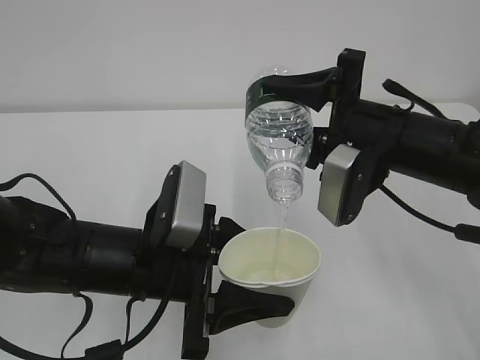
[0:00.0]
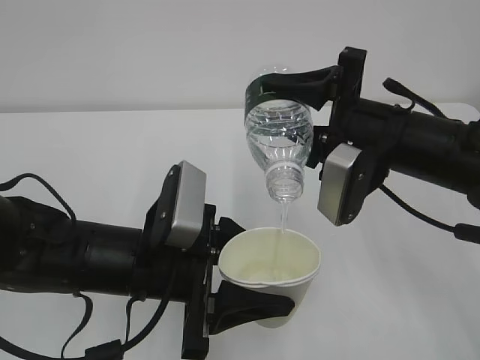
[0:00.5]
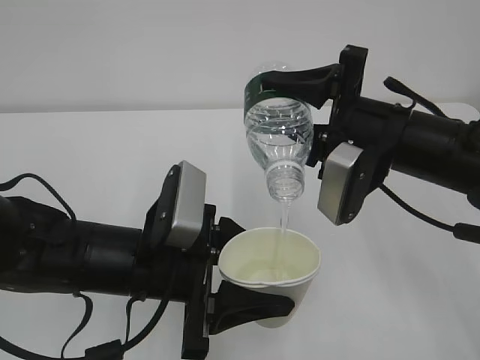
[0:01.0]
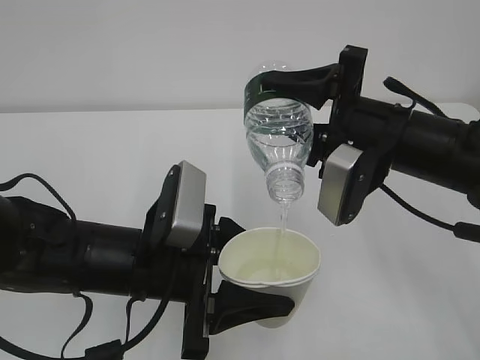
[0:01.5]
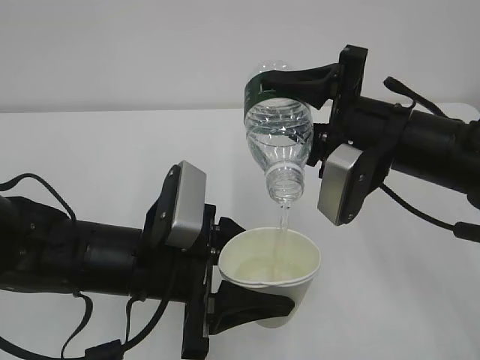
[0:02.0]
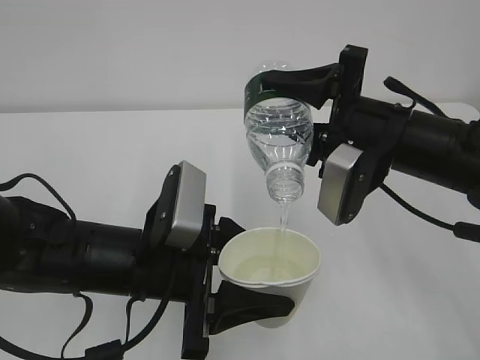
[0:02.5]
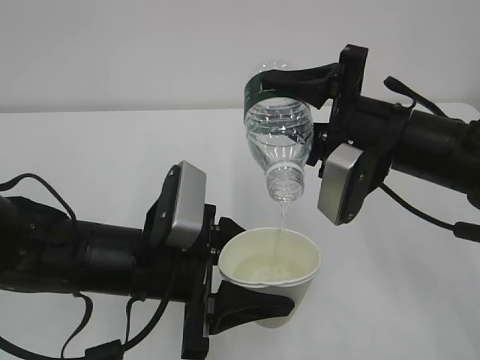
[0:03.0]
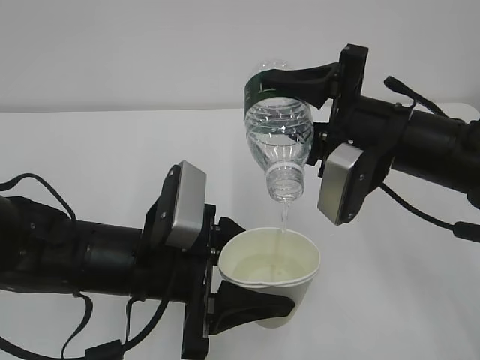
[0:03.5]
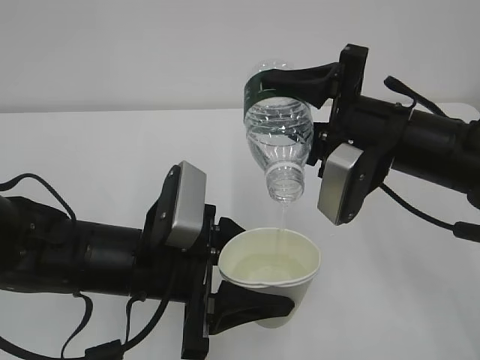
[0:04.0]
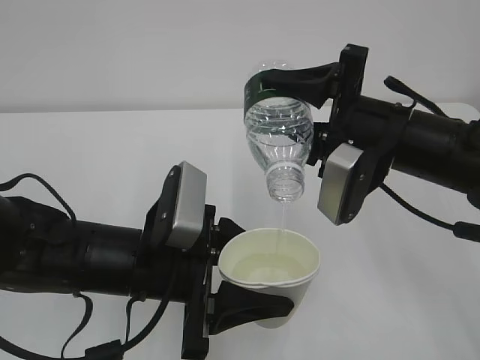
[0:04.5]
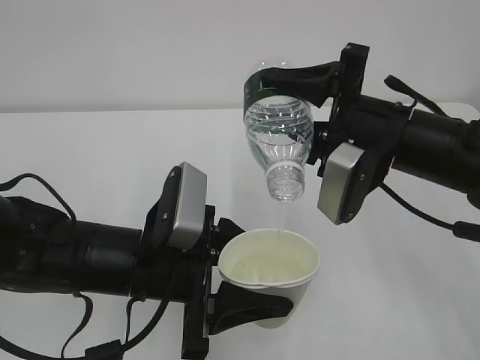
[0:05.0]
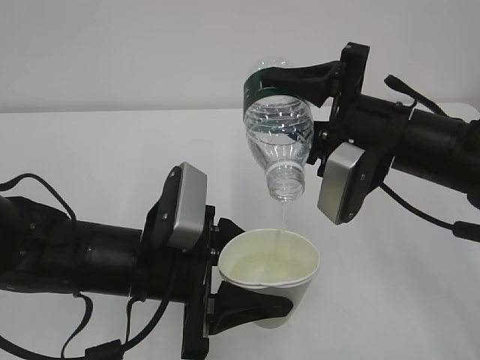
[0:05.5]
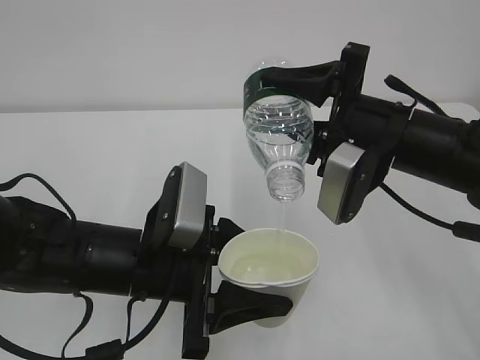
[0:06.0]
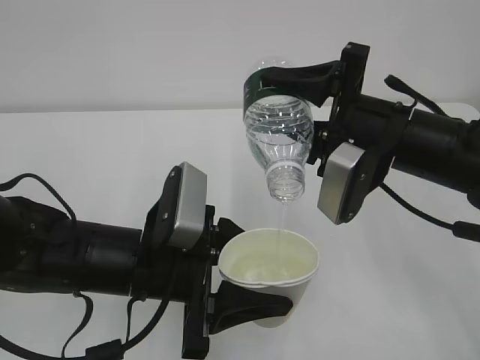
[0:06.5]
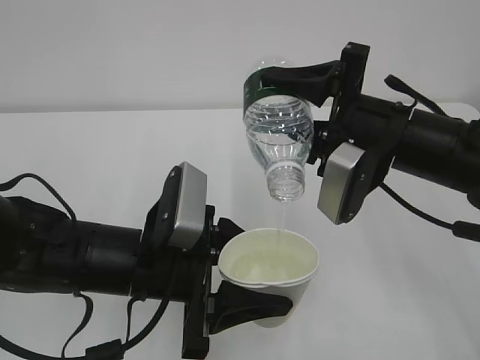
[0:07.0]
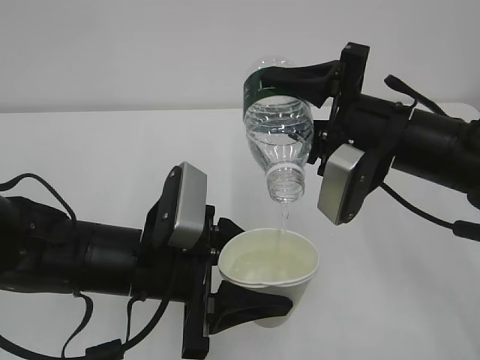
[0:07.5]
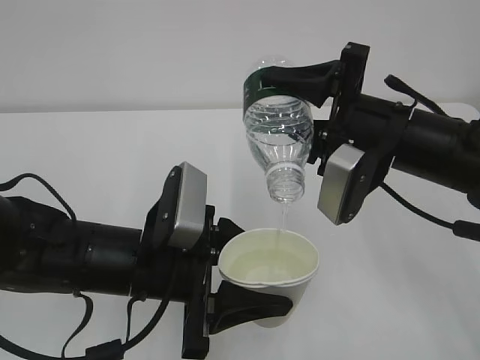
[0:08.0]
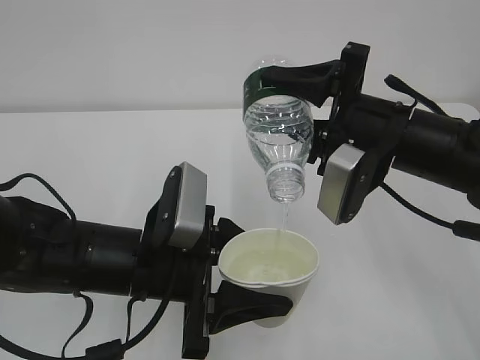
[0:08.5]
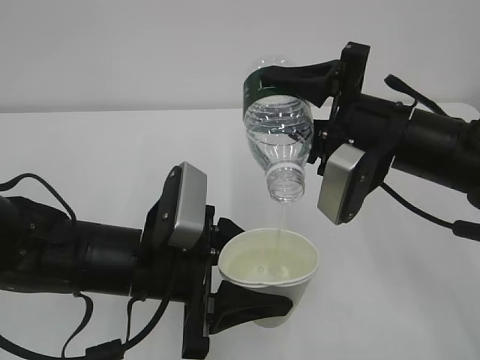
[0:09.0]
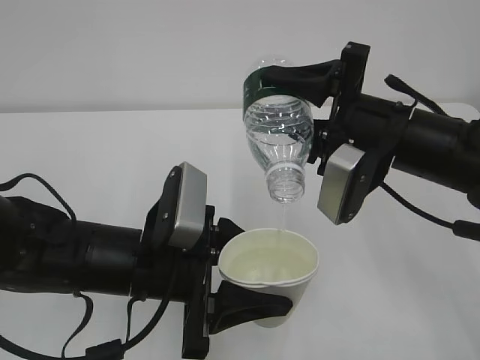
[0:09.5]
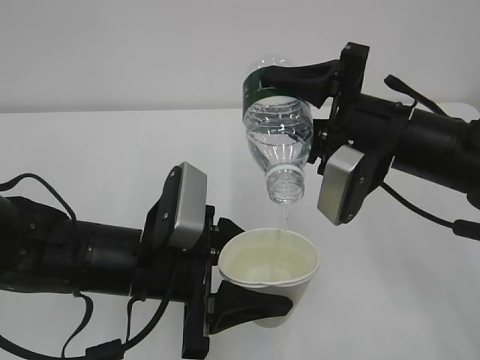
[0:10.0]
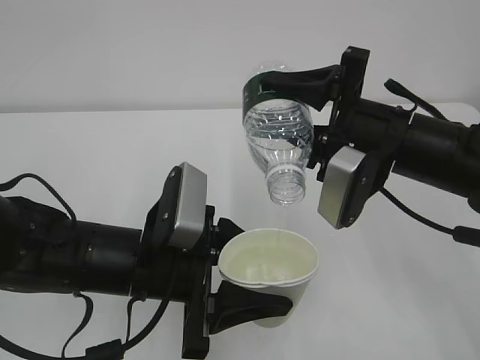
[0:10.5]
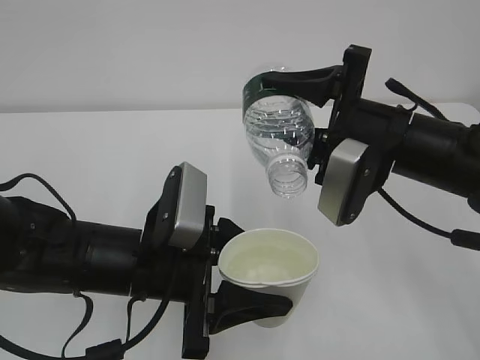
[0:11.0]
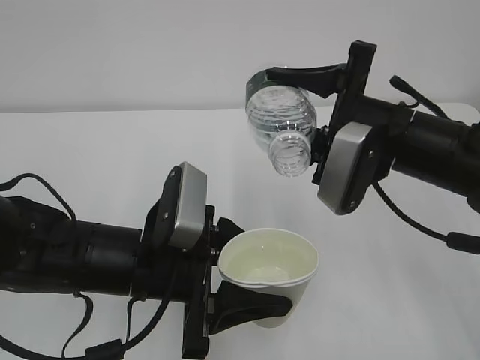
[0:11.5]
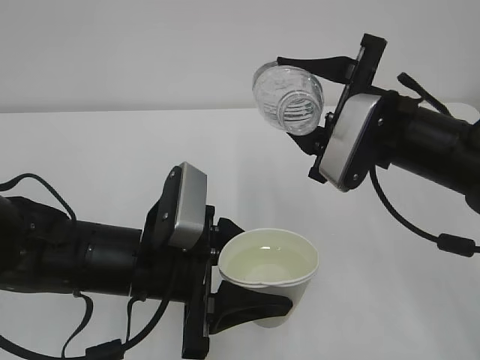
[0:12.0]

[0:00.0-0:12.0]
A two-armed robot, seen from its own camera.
0:00.0 to 0:08.0: Neither gripper changes place.
0:08.0 to 0:10.0: The two grippers keep their place.

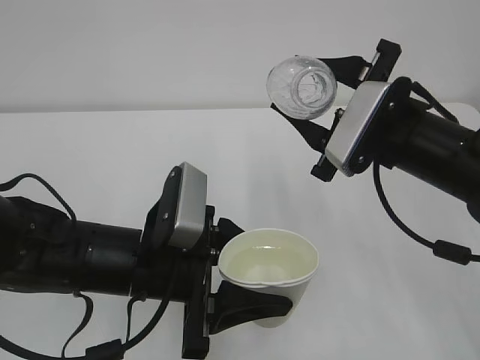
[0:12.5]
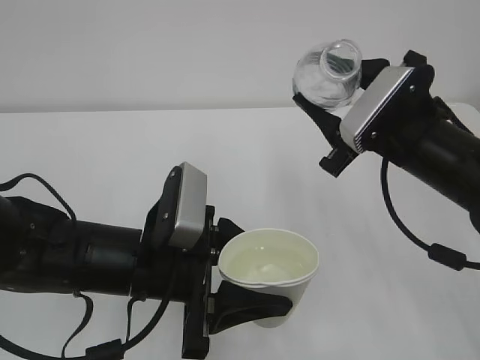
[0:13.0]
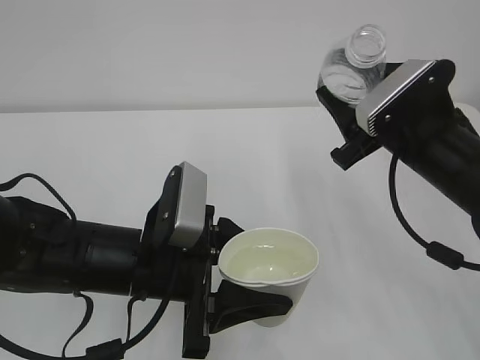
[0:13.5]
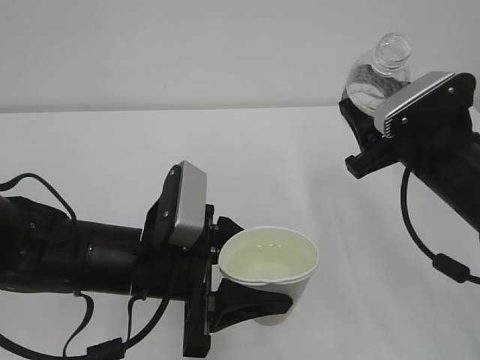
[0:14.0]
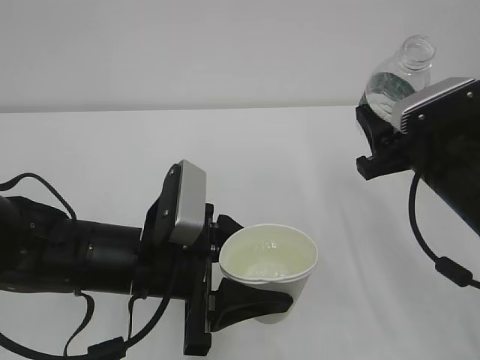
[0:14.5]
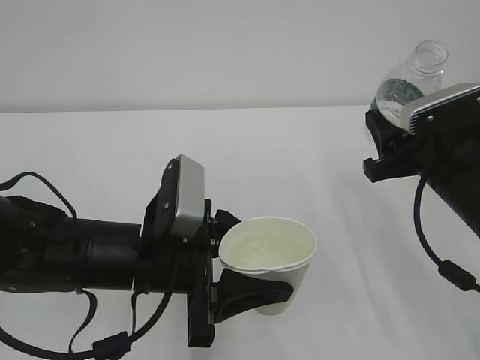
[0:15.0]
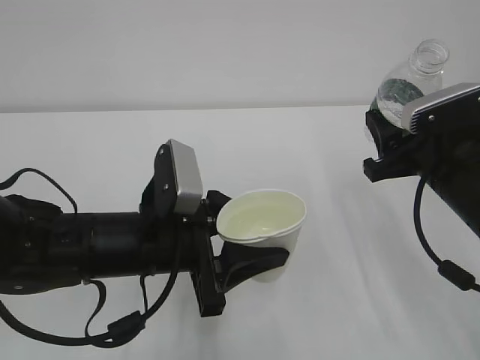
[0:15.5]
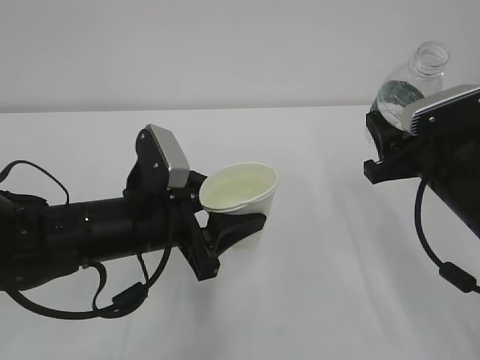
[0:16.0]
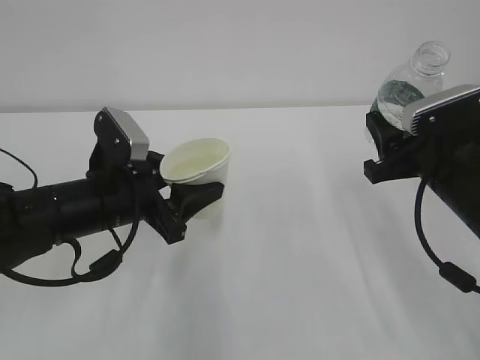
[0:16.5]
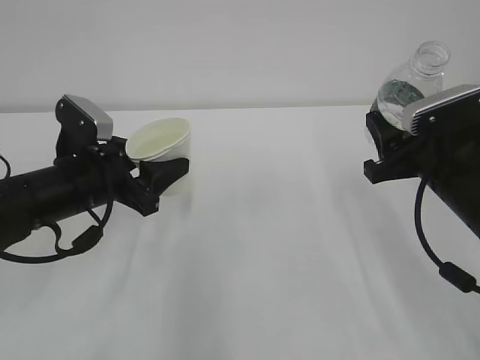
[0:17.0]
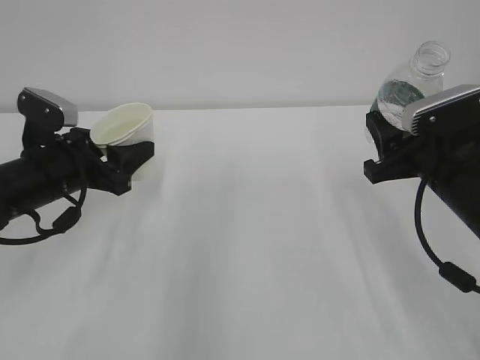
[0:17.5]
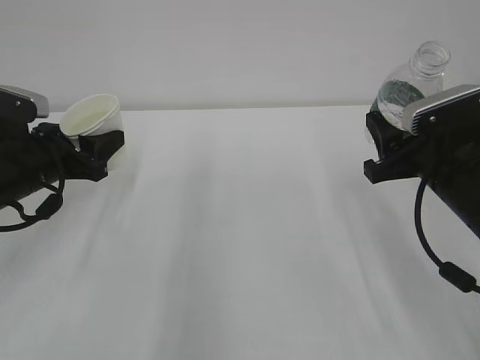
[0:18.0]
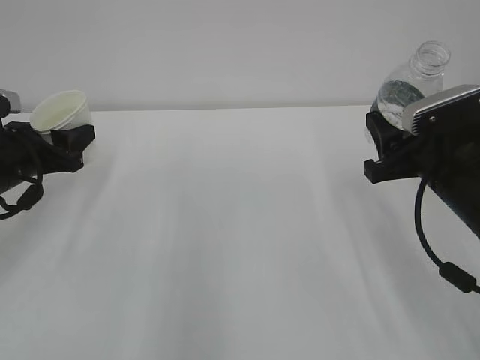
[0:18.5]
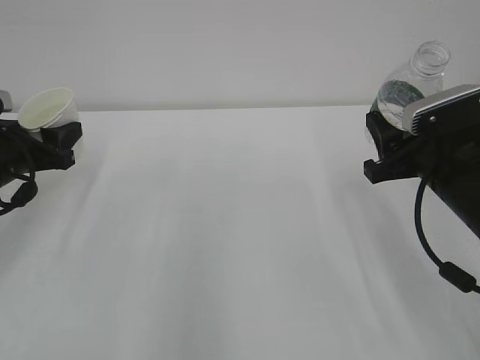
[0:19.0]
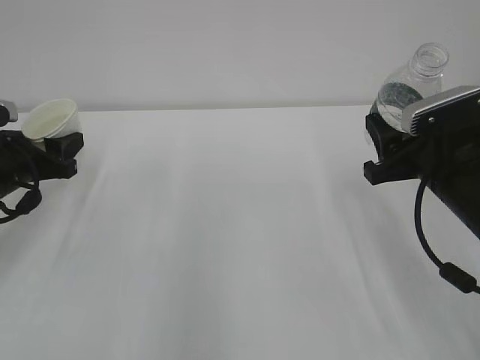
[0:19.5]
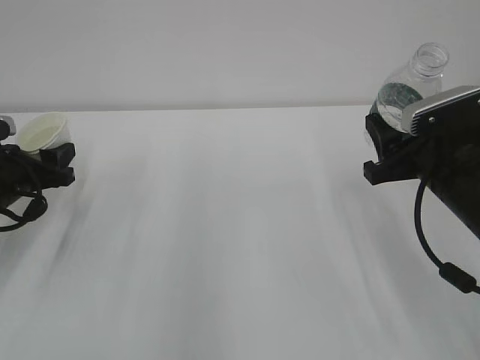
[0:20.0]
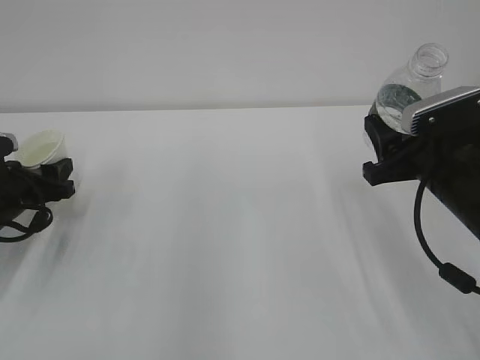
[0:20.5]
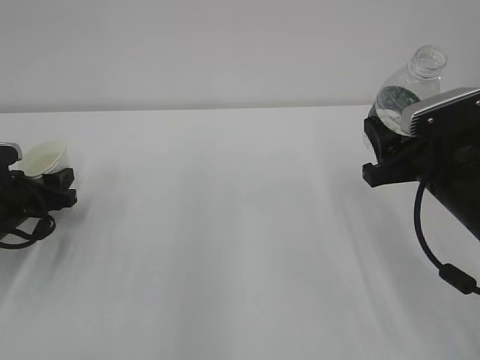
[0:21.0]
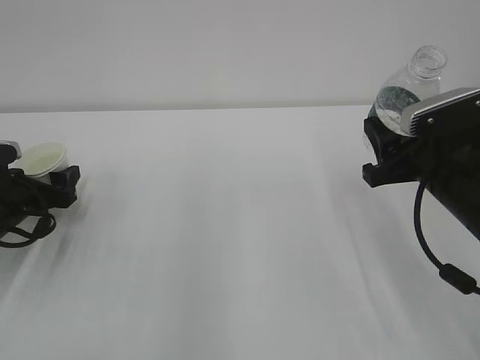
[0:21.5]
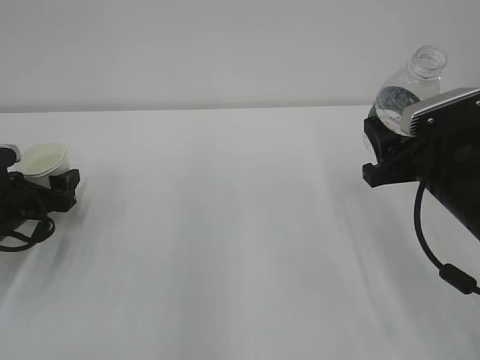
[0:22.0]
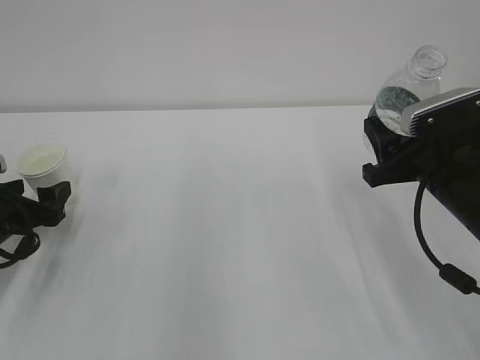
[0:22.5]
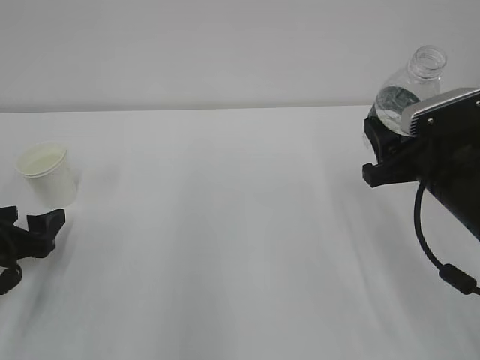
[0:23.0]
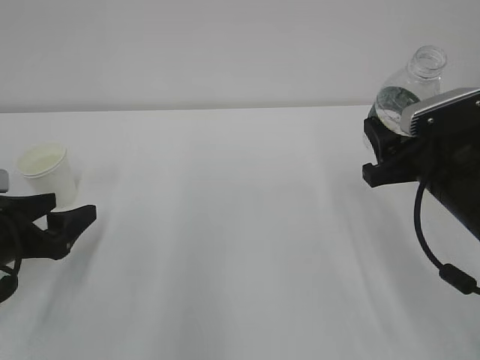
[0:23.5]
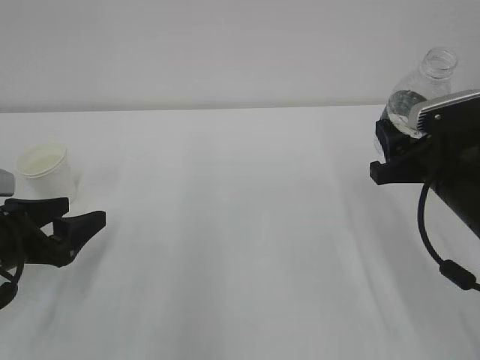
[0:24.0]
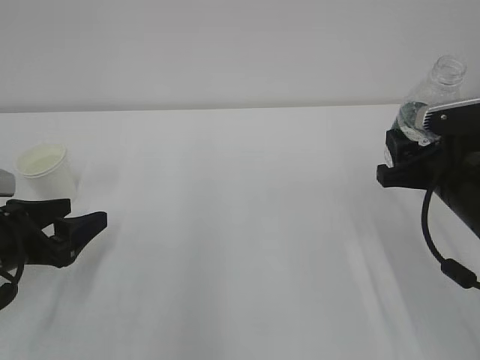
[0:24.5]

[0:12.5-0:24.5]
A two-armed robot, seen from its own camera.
0:12.5 to 0:14.5: The right gripper travels to the right by approximately 5 cm.
0:14.5 to 0:16.5: The left gripper shifts roughly 10 cm forward and to the left.
0:16.5 to 0:18.5: The left gripper travels to the left by approximately 15 cm.
0:18.5 to 0:20.5: The left gripper is displaced downward by approximately 5 cm.
0:20.5 to 0:22.5: The left gripper opens.
0:22.5 to 0:24.5: The left gripper goes approximately 5 cm backward.

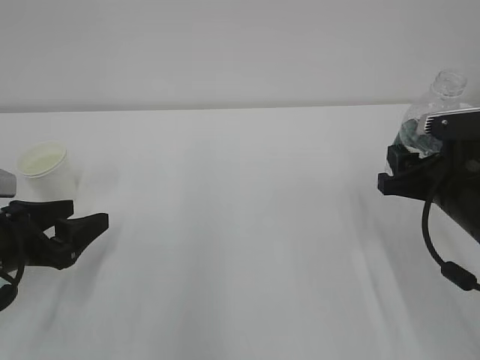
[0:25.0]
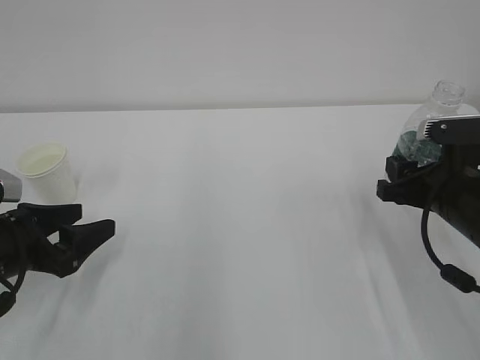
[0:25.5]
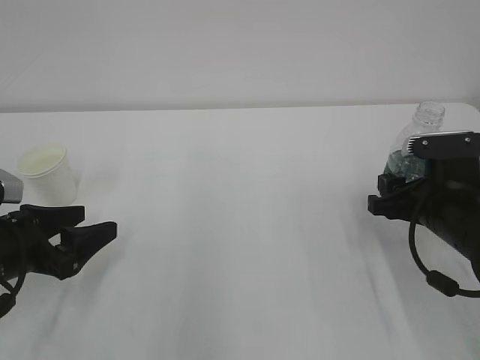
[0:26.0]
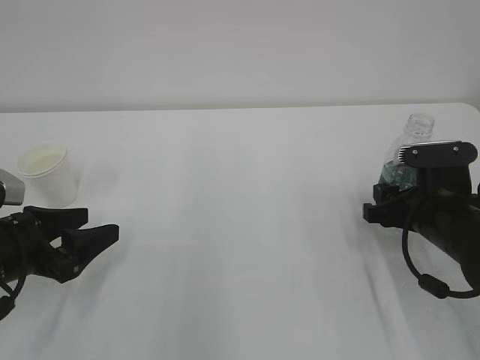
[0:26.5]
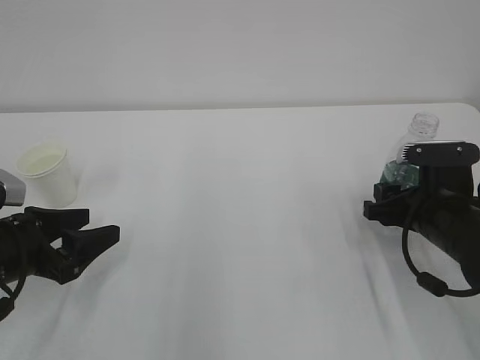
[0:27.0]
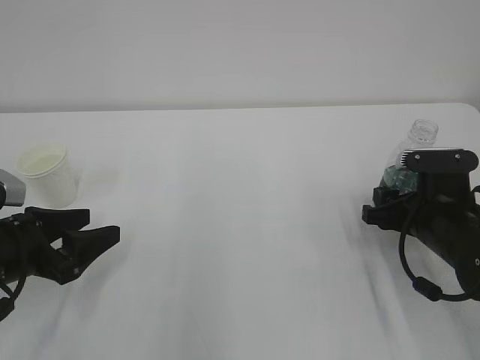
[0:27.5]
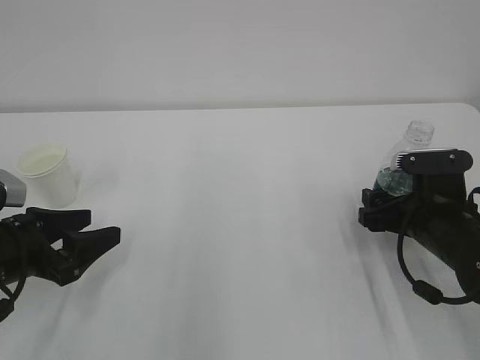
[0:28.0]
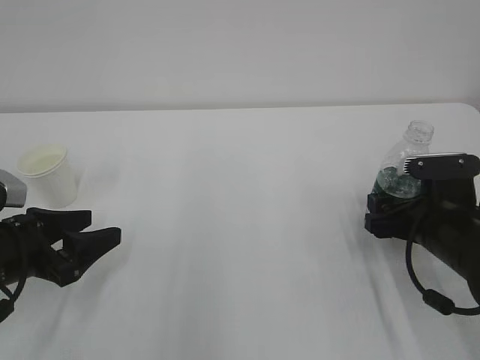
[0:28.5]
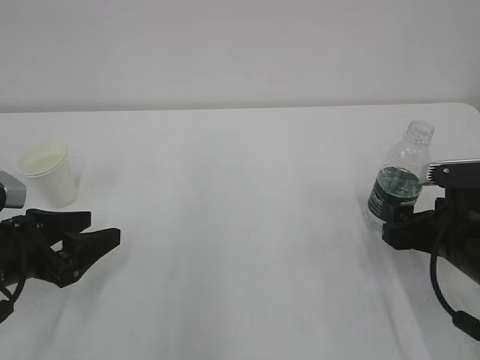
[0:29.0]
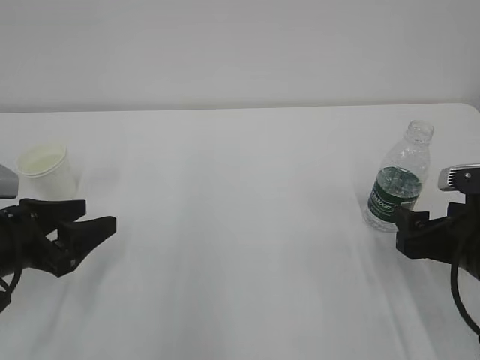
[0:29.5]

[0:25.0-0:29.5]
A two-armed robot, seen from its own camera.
0:25.0 to 0:27.0: The right gripper shifts by approximately 5 cm.
0:27.0 to 0:29.5: The right gripper goes approximately 5 cm backward, and opens.
